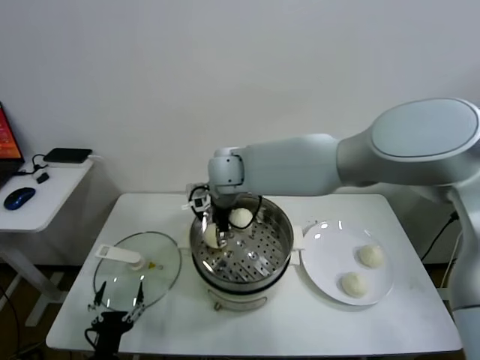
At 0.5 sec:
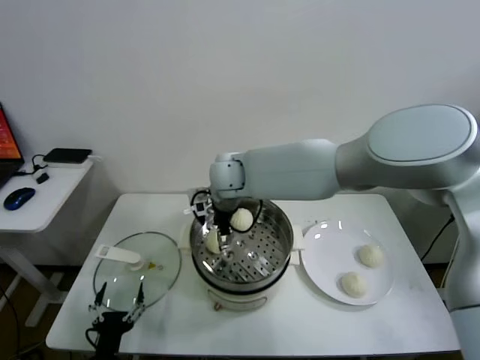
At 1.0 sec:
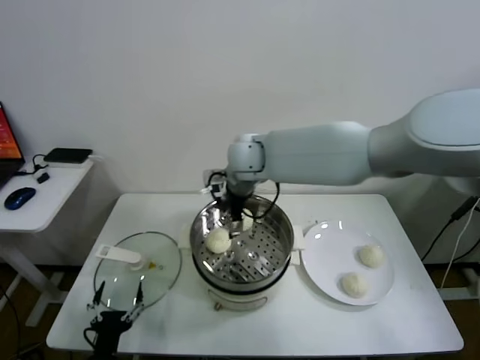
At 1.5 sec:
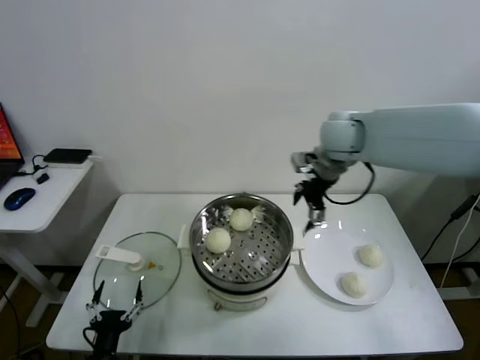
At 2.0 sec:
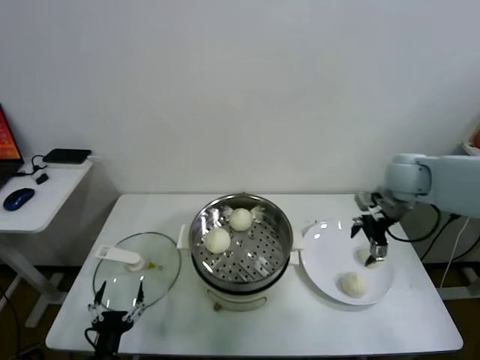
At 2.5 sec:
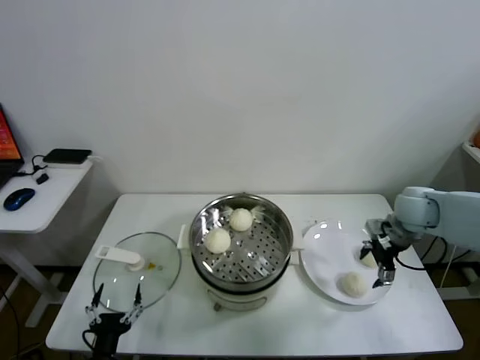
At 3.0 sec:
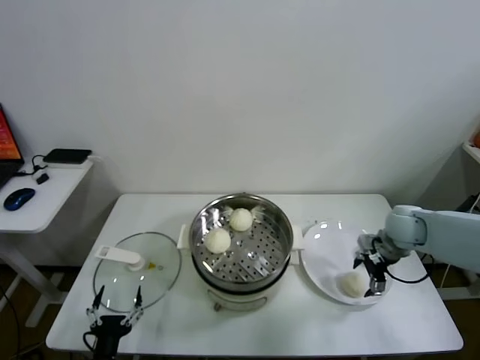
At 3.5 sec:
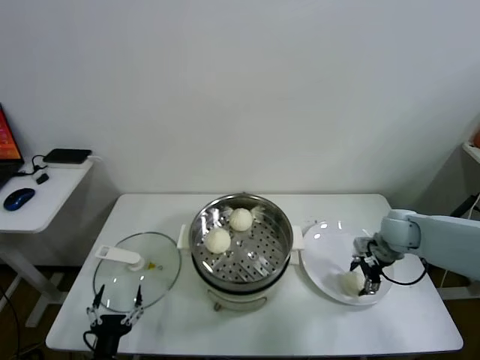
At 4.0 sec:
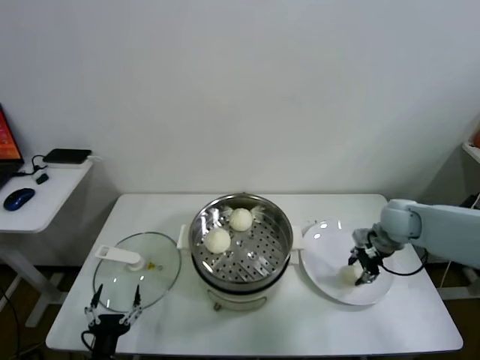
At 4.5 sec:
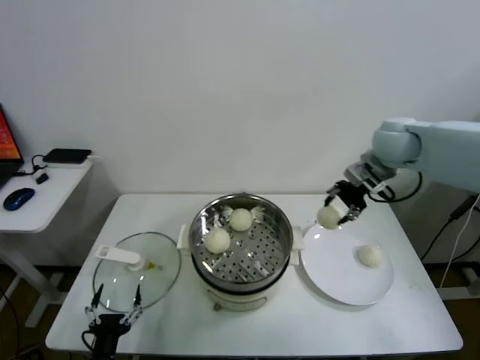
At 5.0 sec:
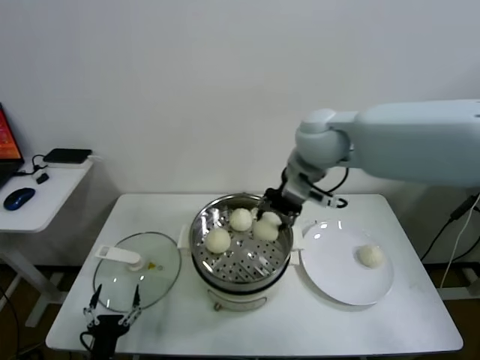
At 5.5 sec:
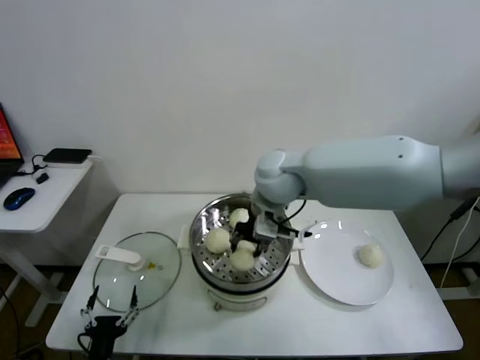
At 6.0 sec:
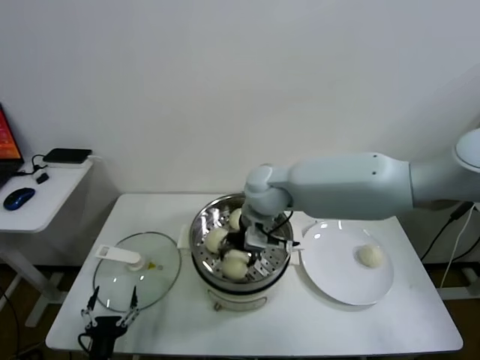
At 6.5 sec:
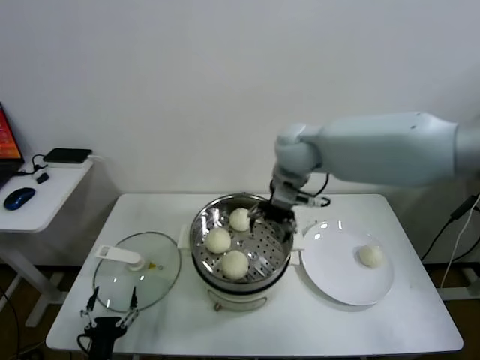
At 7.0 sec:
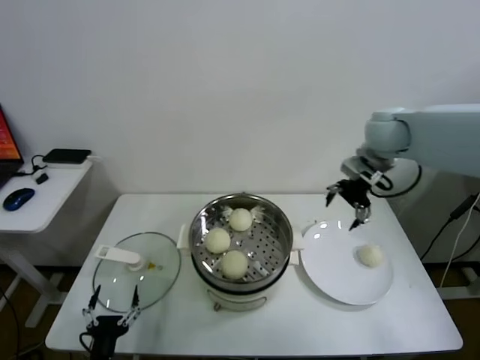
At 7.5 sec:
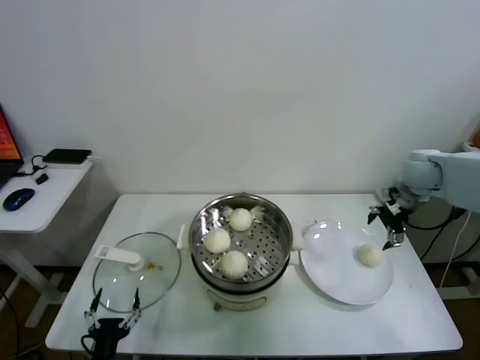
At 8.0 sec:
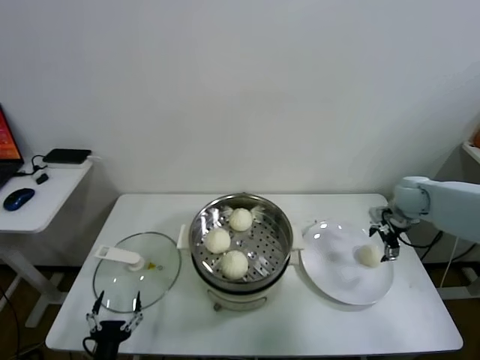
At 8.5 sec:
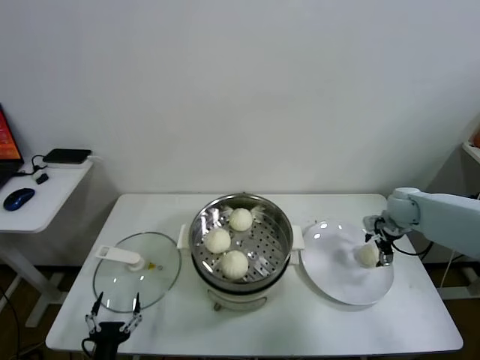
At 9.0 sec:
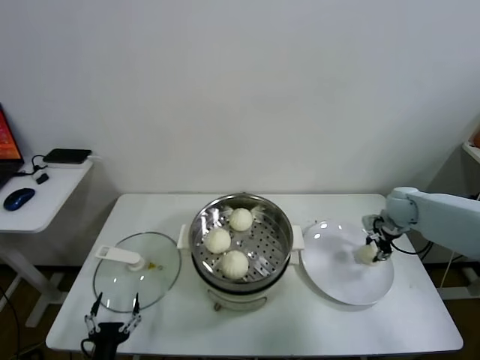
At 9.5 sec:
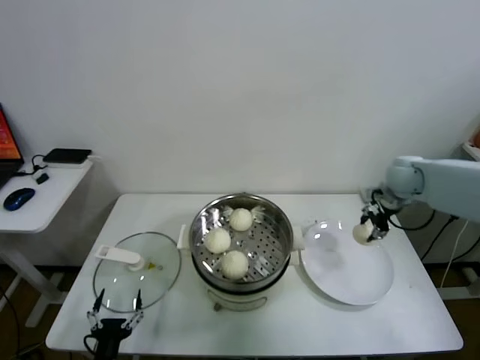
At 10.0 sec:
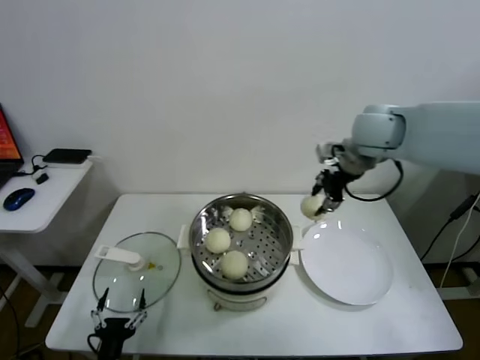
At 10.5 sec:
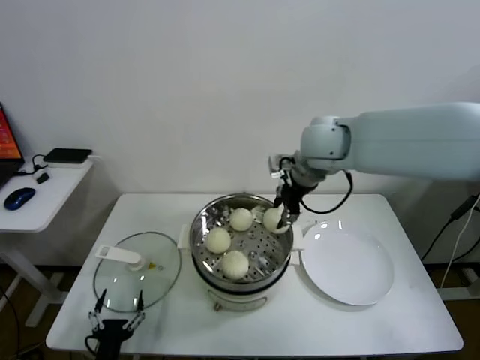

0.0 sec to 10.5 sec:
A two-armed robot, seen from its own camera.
Task of the whole recording: take steamed baozi put them in steamer.
Step, 1.0 sec to 3.5 sec: Grasp the baozi in the plate with right gripper.
Step, 4.0 sec to 6.0 sec: Place the baozi on the steamer with right gripper.
Step, 6.5 sec to 9.0 sec: Grasp the baozi in the plate with right gripper.
0.0 sec to 2.0 sec: The right gripper travels to the right by approximately 40 cm, and opens its fingers.
2.0 sec to 4.0 sec: The right gripper heads downward, covering roughly 10 cm, and closes its fingers.
4.0 sec to 6.5 sec: The right gripper goes roughly 30 cm to the left and upward, and opens up.
6.5 sec to 8.5 sec: The right gripper moves to the right and downward, approximately 35 cm.
8.5 sec to 10.5 sec: The right gripper shifts roughly 35 cm to the left and upward, and closes up.

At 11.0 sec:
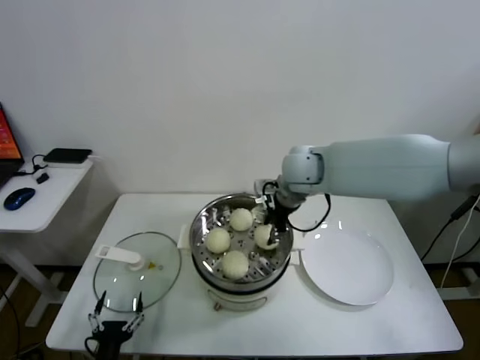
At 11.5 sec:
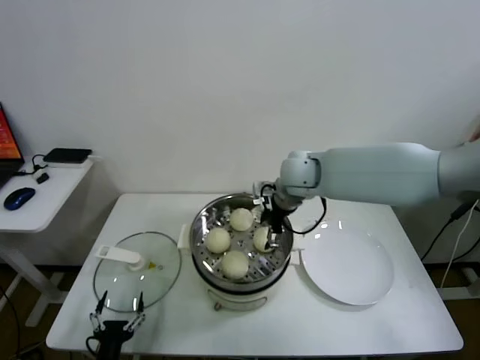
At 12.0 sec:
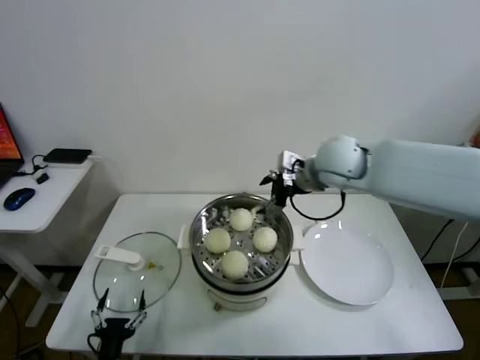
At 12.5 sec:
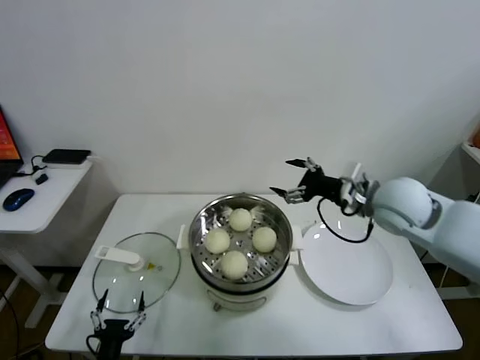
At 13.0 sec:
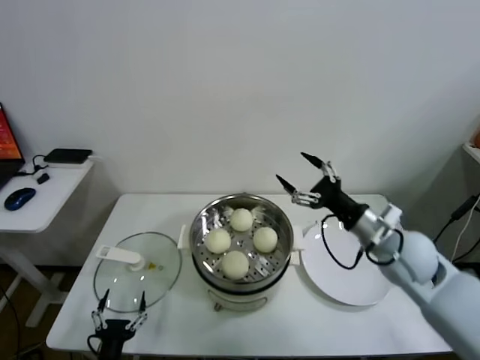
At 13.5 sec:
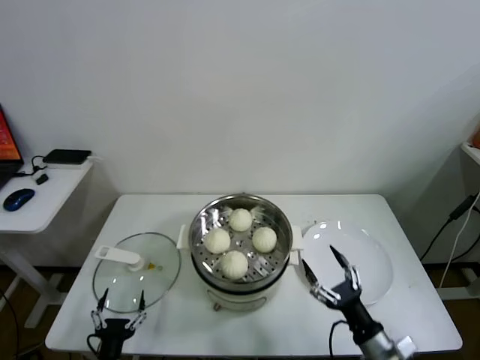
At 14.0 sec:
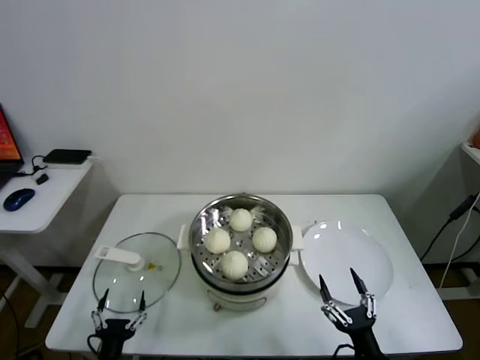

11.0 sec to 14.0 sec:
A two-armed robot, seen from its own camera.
Task of the whole recording: take steamed baozi put them in steamer.
11.0 sec to 12.5 sec: The right gripper goes approximately 15 cm to the right and backward, and opens its fingers.
12.5 sec to 14.0 sec: The right gripper heads downward and backward, covering roughly 40 cm.
